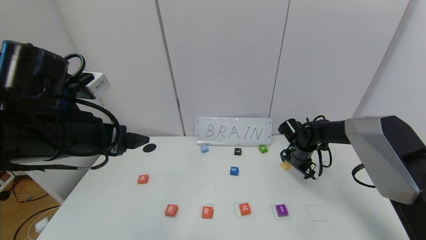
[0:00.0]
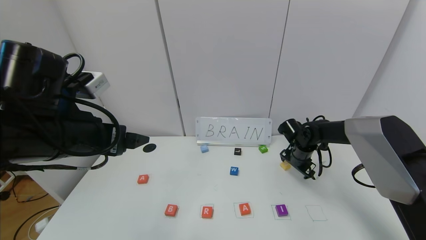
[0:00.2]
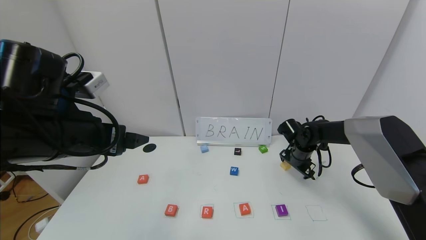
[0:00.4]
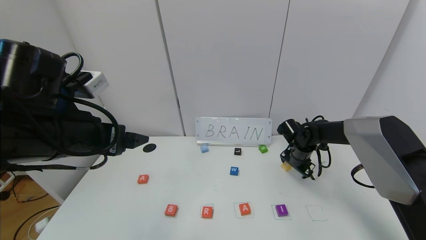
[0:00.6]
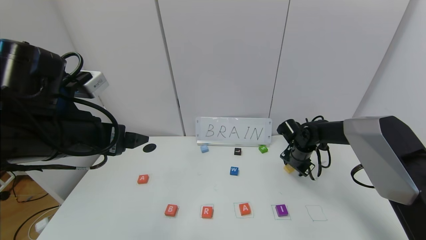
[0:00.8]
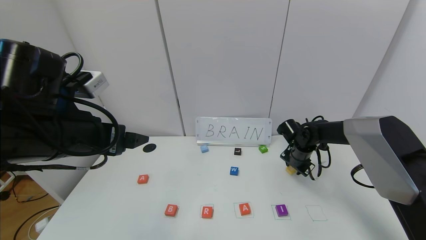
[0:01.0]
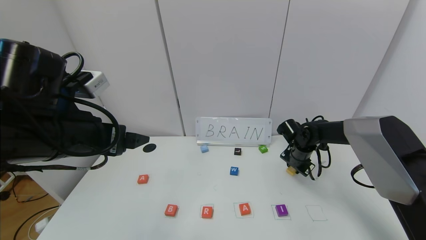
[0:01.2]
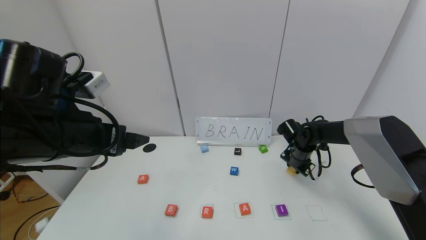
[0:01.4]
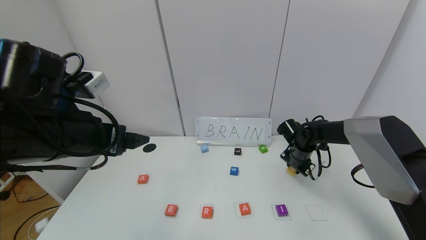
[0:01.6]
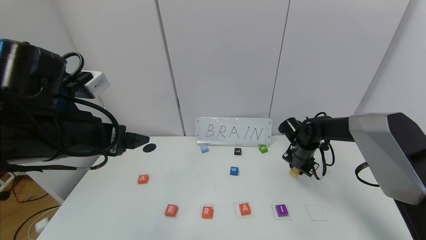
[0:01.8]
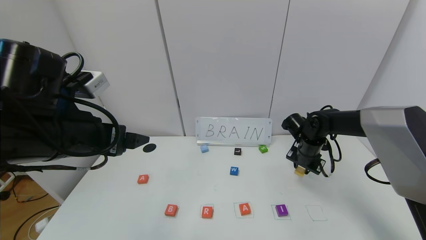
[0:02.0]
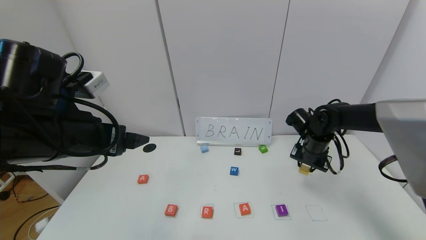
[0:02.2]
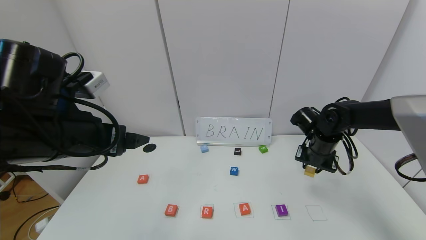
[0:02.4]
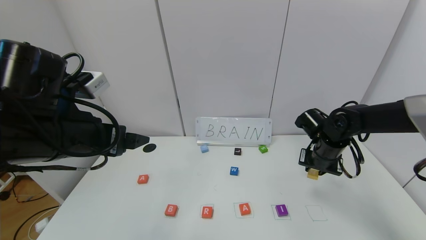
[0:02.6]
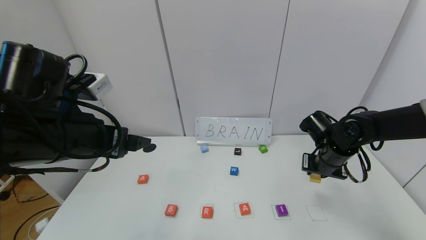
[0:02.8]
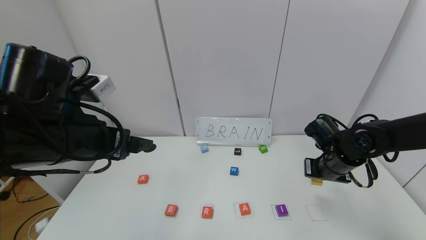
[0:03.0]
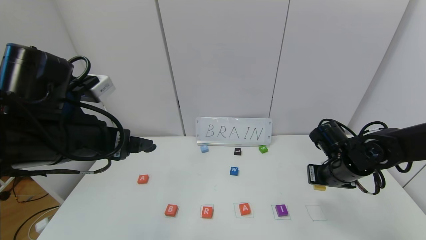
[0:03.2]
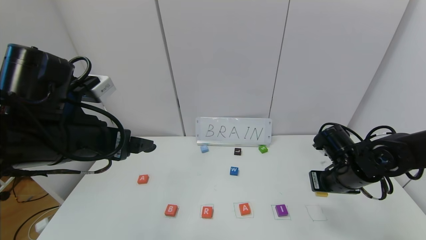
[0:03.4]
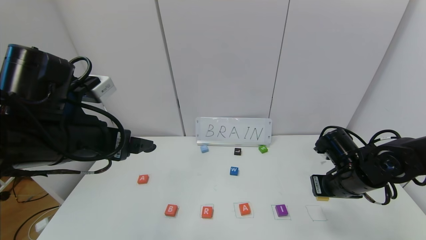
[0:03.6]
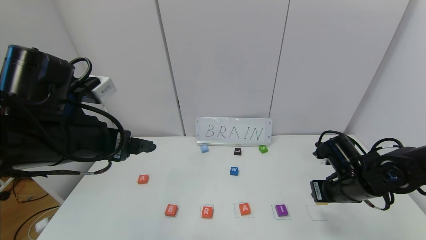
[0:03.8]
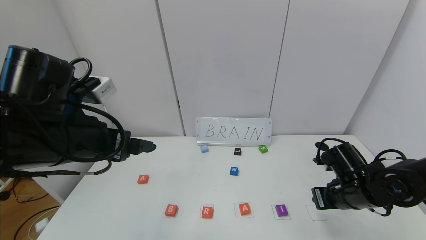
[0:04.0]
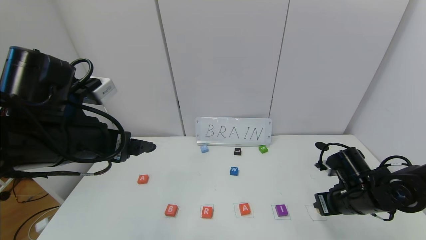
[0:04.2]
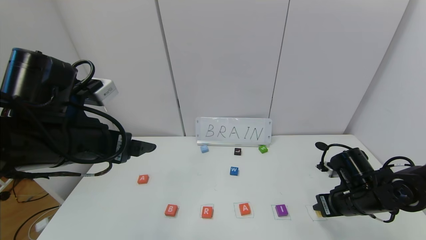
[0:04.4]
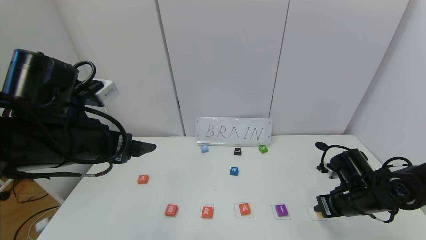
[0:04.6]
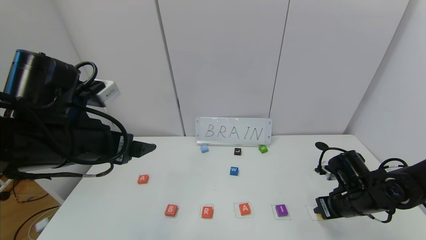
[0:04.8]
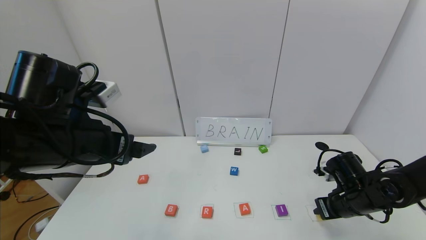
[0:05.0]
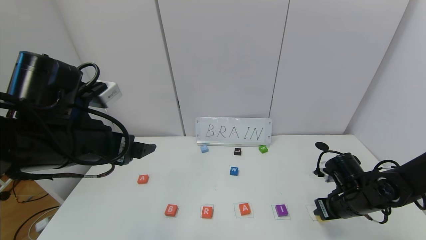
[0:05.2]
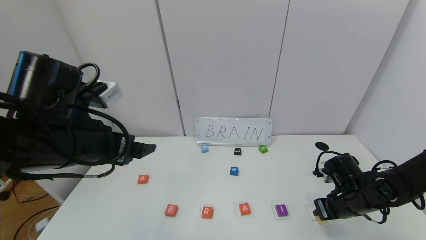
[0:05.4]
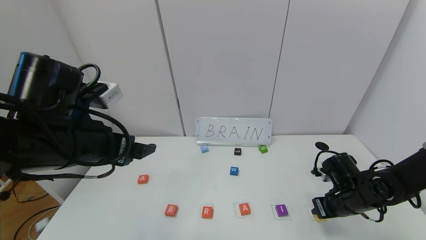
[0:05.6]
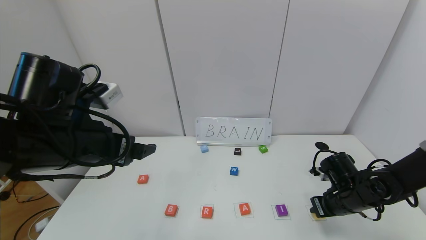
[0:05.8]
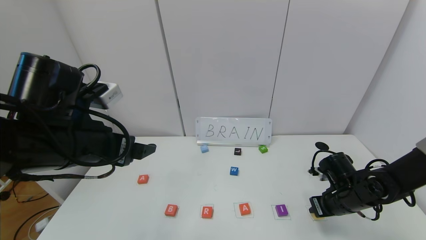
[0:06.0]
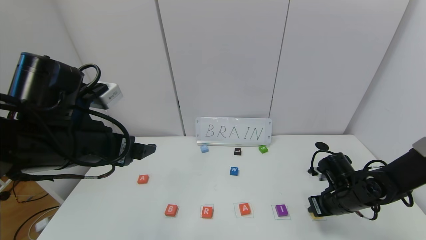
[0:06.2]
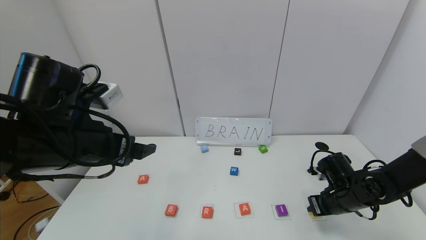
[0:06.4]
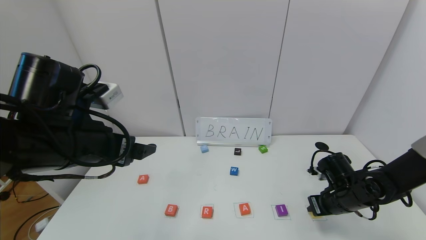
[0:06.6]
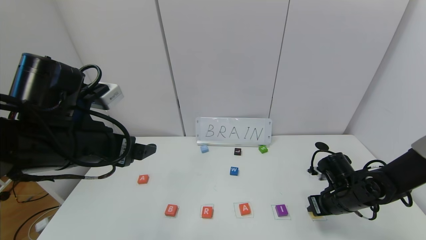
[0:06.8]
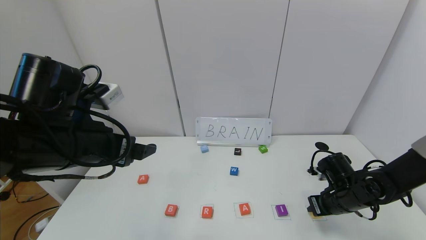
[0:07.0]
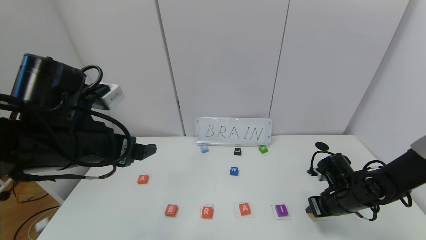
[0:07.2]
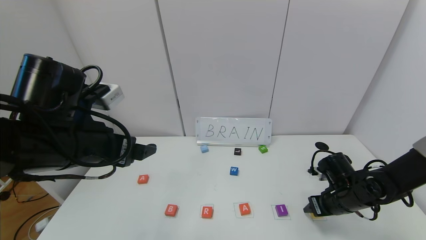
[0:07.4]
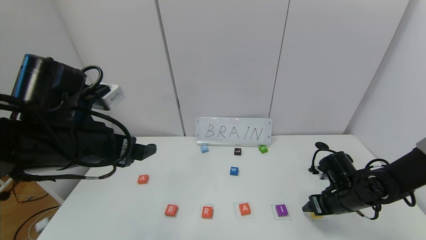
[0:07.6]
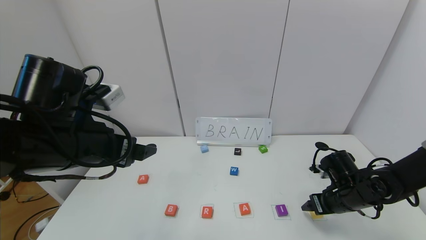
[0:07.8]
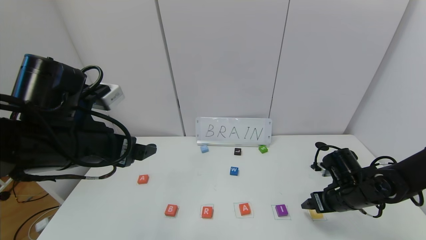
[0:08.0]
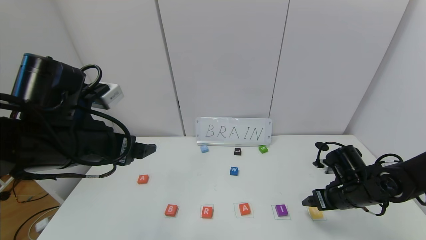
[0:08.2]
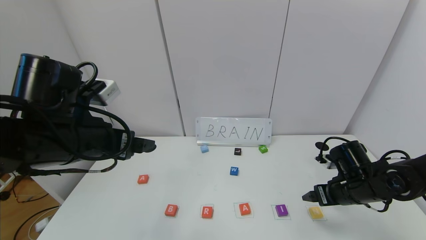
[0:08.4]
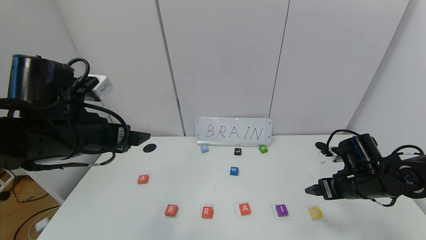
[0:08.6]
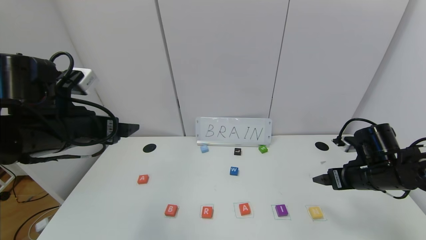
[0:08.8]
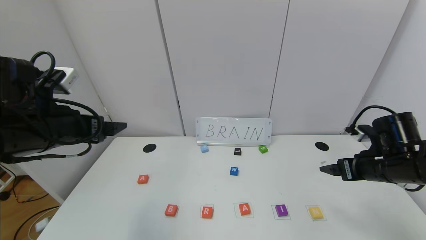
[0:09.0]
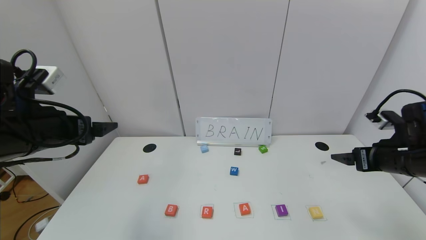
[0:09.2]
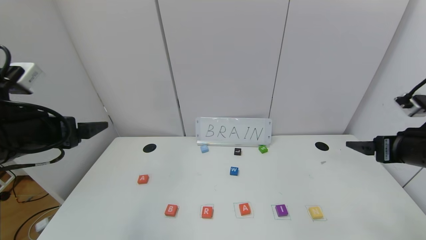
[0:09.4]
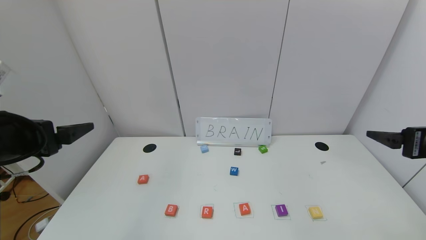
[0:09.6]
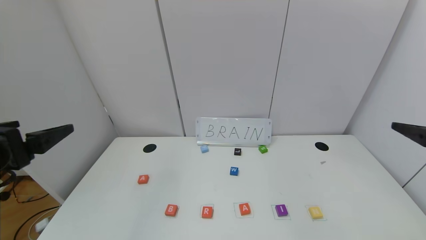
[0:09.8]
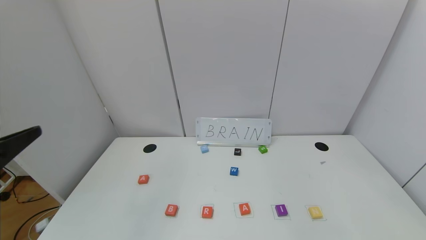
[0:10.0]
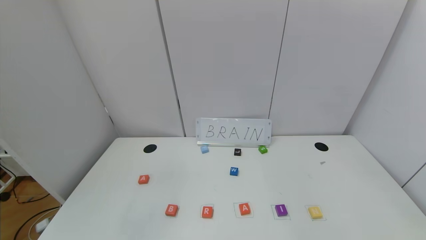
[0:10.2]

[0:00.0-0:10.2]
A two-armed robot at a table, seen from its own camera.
Task of the whole recording: use the gripper to find blocks with the letters b, a, a, and i on the table and arrange them into BAAI, then find r and N and turn the arranged baai into brian.
Step, 0.0 to 7.8 s: Place the block N in the fifth location.
0.0 to 1.4 s: The right gripper closes.
1.4 to 3.0 s: The right gripper moves backward and upward, approximately 15 cm.
3.0 to 4.4 s: The right gripper moves backward, approximately 5 cm.
4.4 to 5.8 s: The grippers make only small movements.
5.8 to 7.2 s: Both grippers stay about where they are.
7.2 to 8.8 s: The left gripper shifts by roughly 5 cm; the right gripper moves upward, approximately 10 cm, and opens.
8.8 to 10.2 s: The left gripper moves backward, some 20 cm. Meanwhile the right gripper moves backward and upward, about 30 cm.

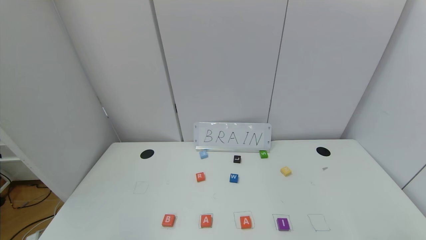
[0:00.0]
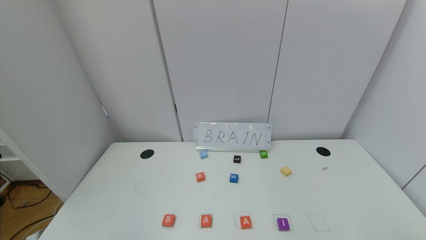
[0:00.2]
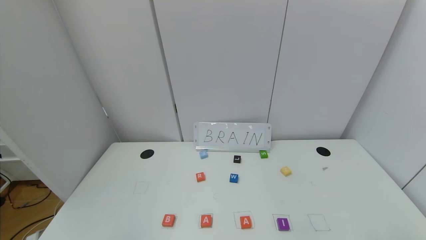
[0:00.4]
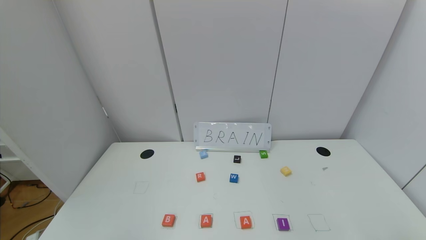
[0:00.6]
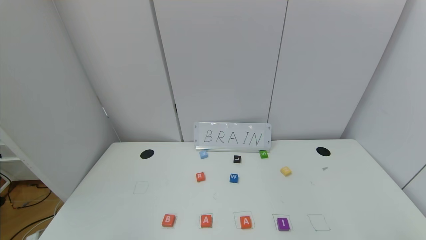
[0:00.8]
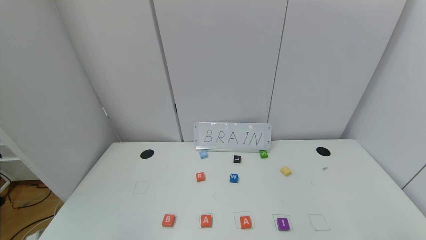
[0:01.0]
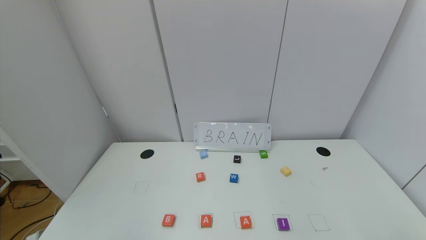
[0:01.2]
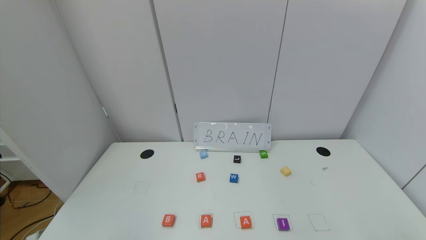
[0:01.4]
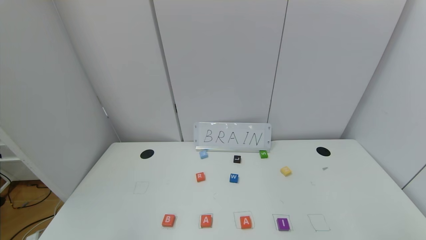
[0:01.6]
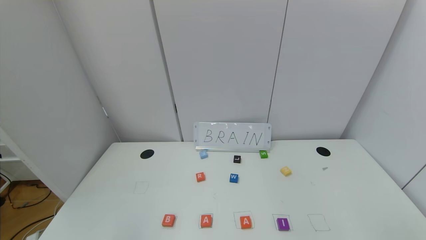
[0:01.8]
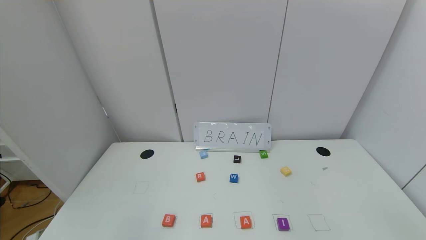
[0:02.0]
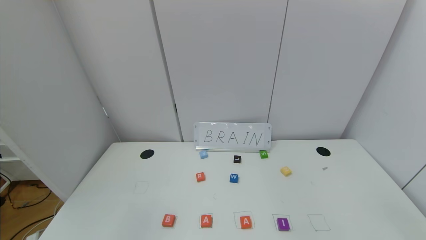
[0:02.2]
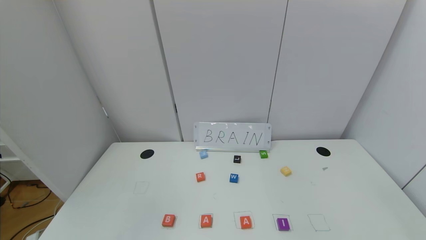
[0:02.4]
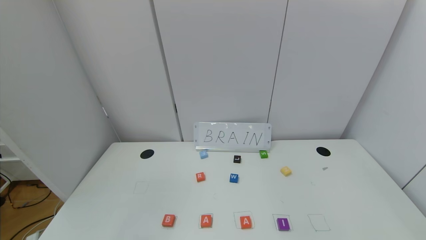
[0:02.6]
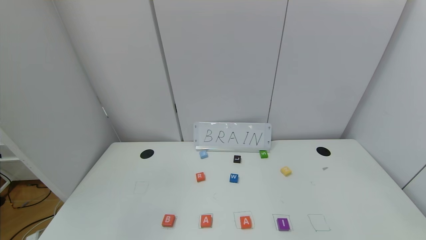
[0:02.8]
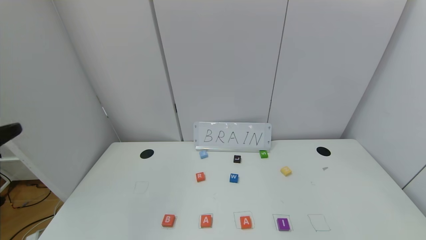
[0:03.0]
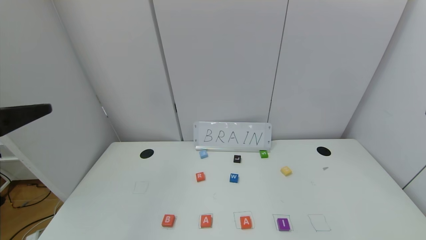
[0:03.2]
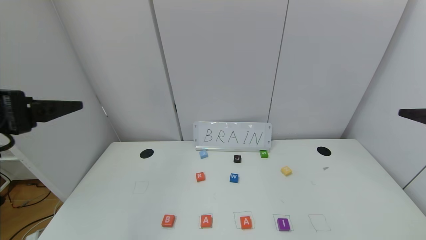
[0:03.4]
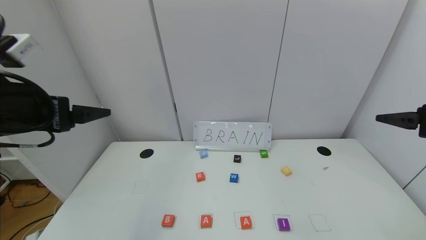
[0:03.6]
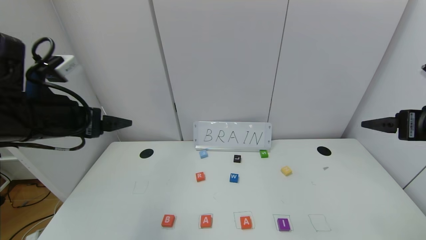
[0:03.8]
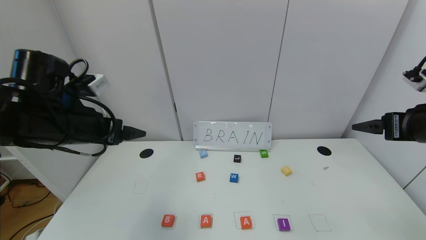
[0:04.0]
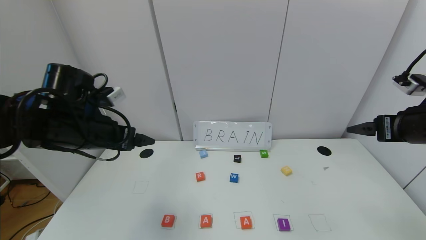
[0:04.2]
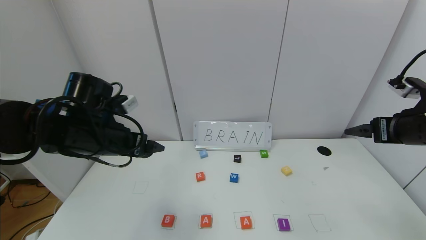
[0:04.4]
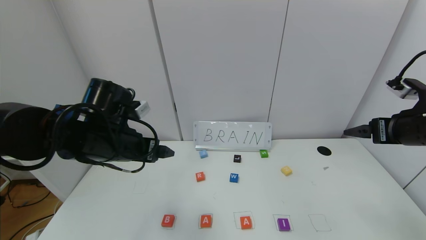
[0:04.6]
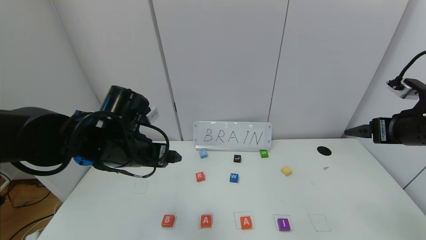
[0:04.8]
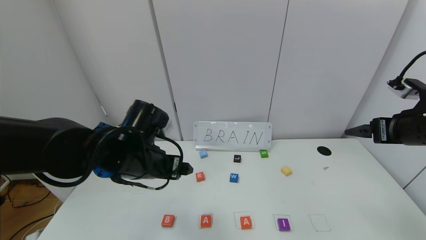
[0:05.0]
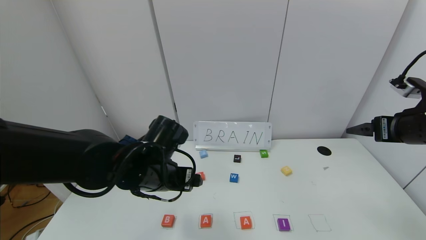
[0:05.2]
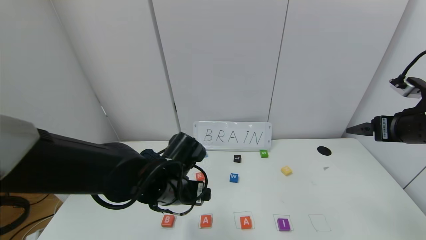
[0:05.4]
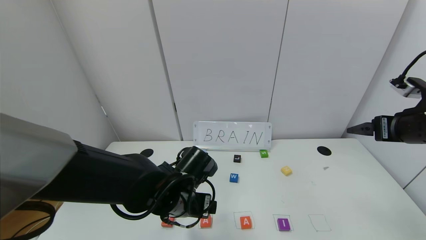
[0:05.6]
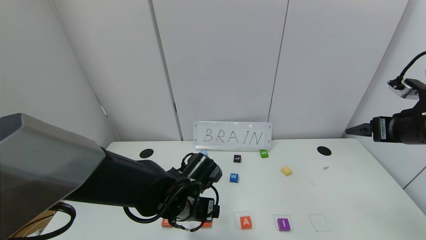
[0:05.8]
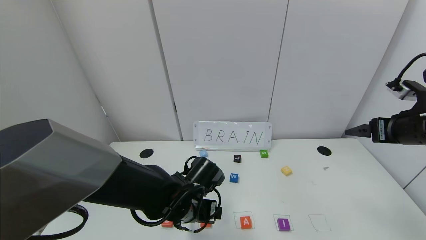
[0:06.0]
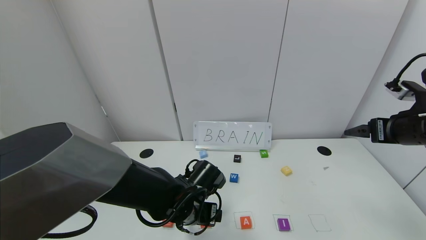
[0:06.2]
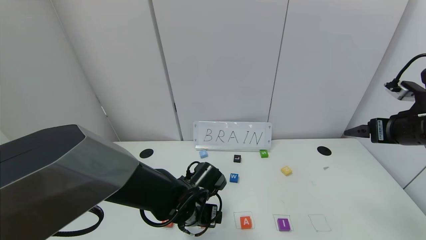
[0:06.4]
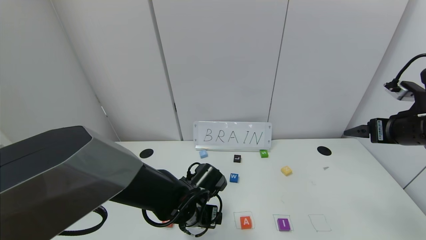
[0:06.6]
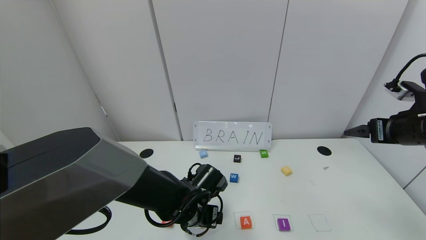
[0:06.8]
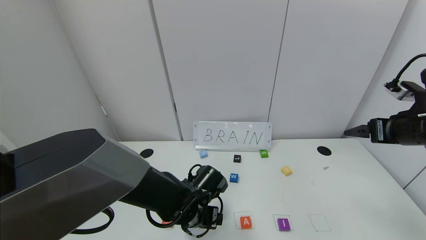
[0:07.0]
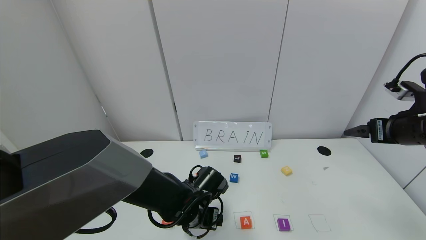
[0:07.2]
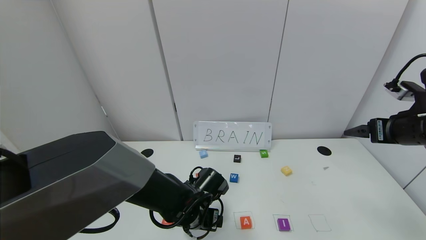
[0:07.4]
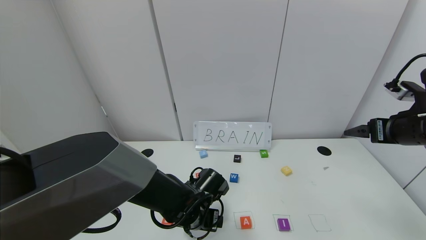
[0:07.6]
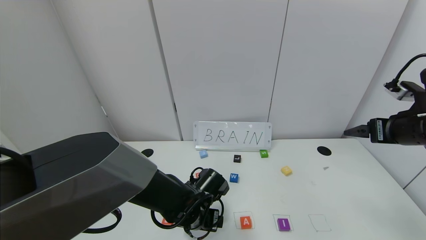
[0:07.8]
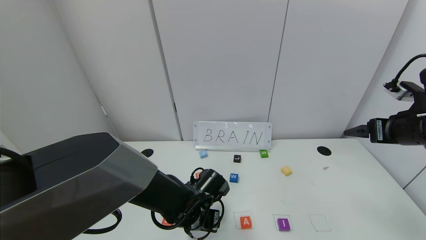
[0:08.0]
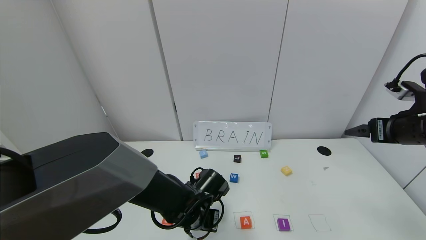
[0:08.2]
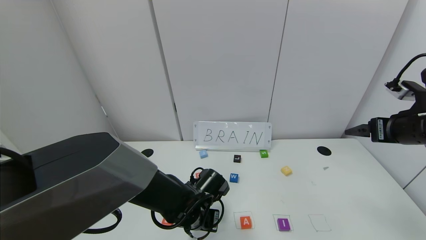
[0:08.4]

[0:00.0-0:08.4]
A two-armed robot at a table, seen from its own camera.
Task of the whole recording: use the gripper to find blocks with the letters b, a, a, and i on the table and arrange them into BAAI, then find r and N and turn the arranged baai into brian.
0.0 to 1.4 s: Both grippers stay about where they are.
2.8 to 4.2 s: The two grippers go roughly 25 cm forward.
4.2 to 5.6 s: The left gripper travels to the right and downward by approximately 20 cm.
5.6 to 7.0 s: The left gripper moves downward, about 5 cm.
7.0 to 8.4 s: The left gripper closes its fingers.
